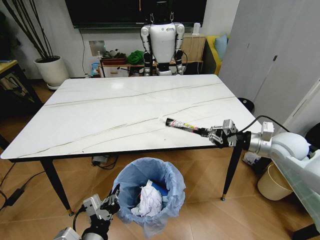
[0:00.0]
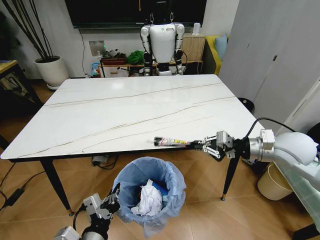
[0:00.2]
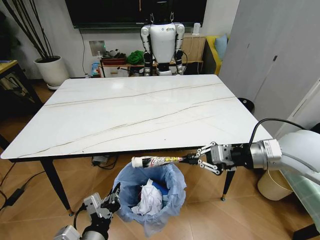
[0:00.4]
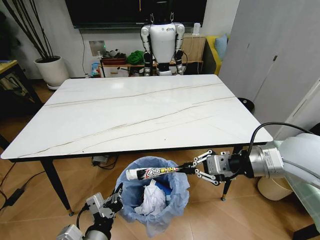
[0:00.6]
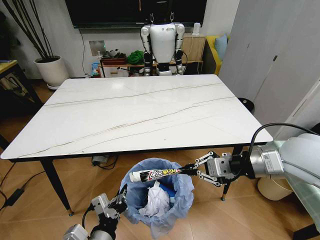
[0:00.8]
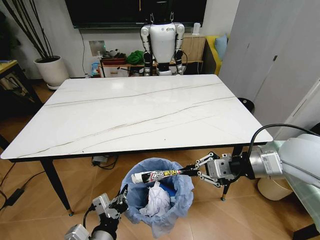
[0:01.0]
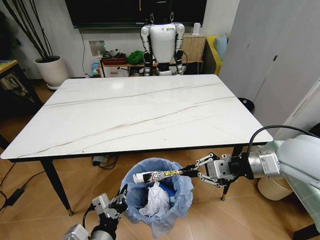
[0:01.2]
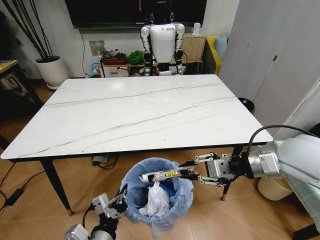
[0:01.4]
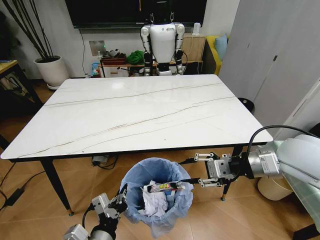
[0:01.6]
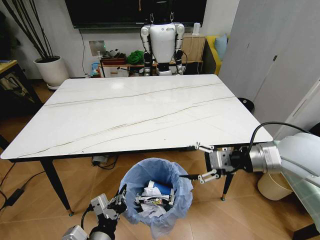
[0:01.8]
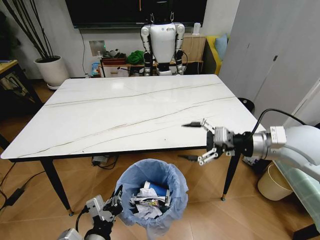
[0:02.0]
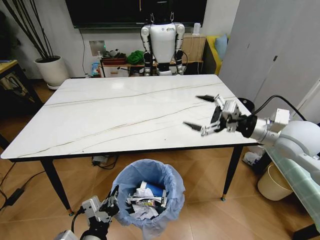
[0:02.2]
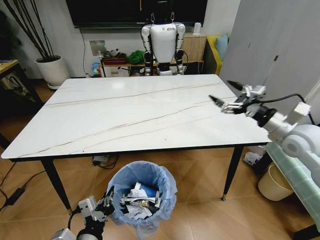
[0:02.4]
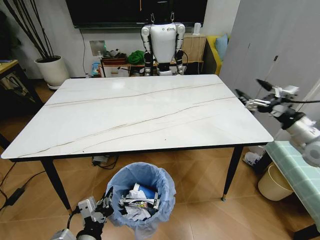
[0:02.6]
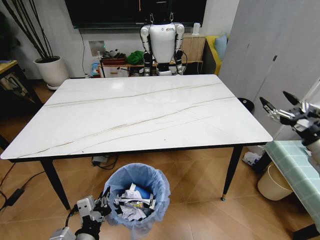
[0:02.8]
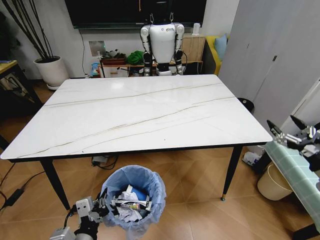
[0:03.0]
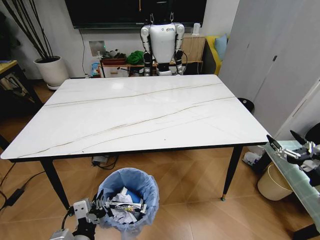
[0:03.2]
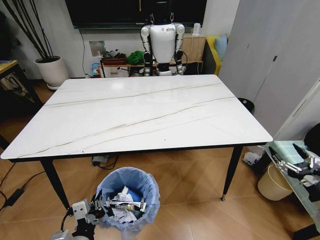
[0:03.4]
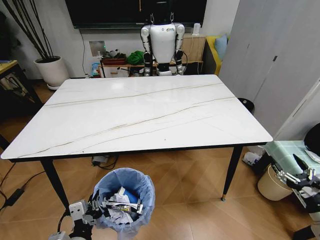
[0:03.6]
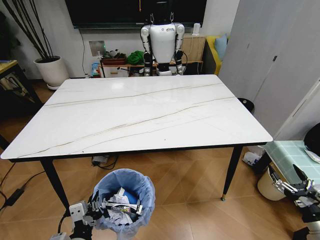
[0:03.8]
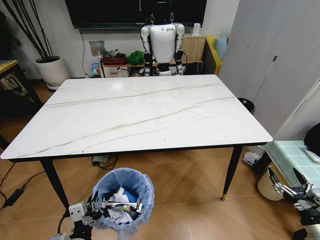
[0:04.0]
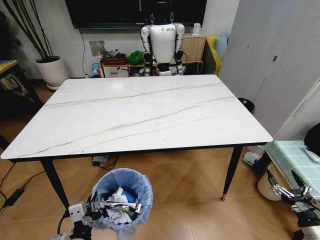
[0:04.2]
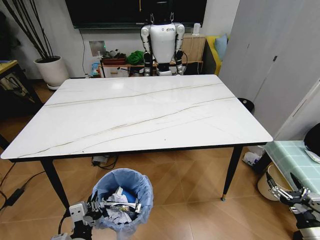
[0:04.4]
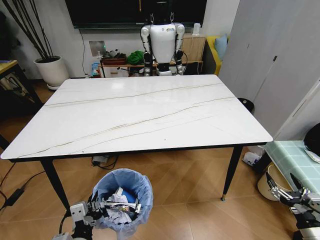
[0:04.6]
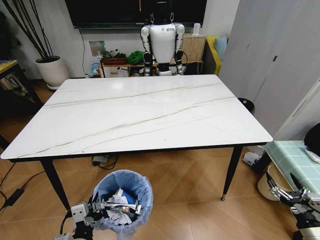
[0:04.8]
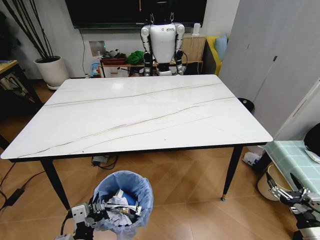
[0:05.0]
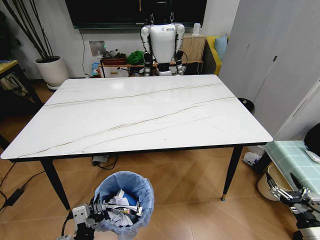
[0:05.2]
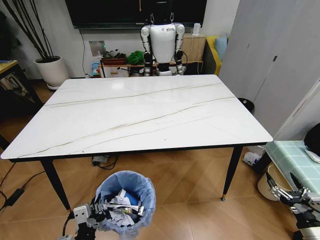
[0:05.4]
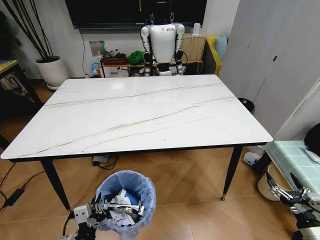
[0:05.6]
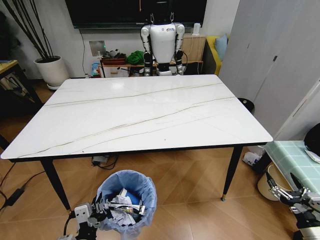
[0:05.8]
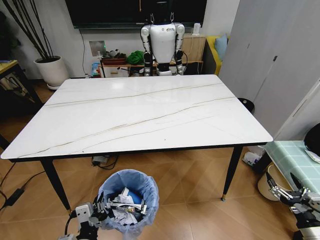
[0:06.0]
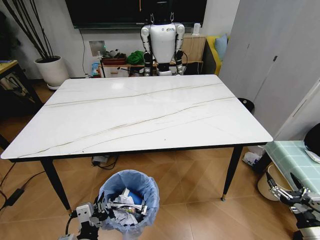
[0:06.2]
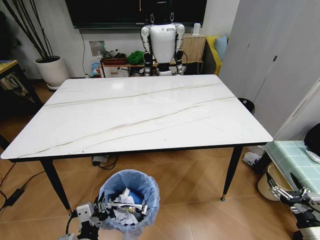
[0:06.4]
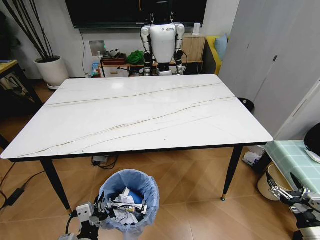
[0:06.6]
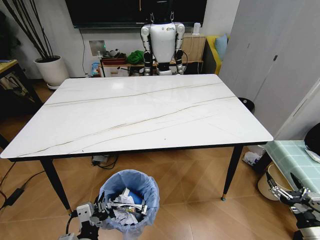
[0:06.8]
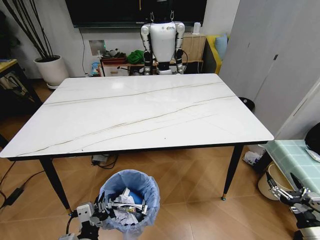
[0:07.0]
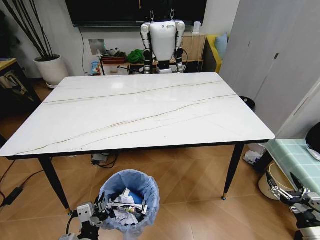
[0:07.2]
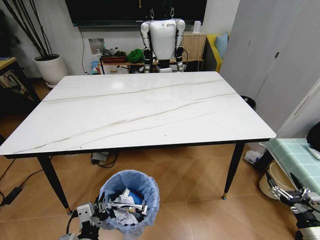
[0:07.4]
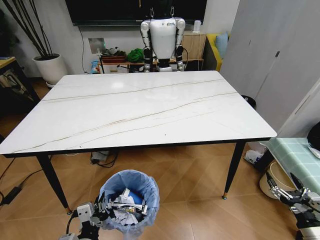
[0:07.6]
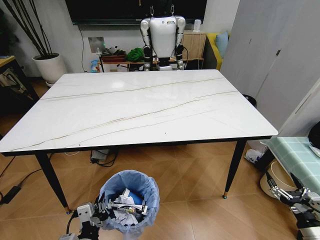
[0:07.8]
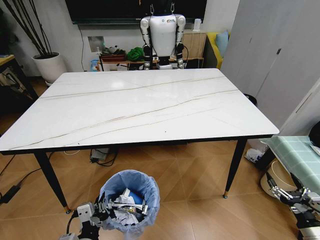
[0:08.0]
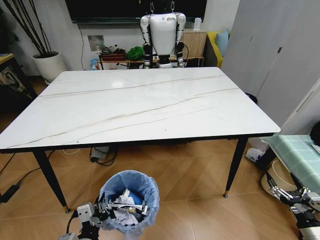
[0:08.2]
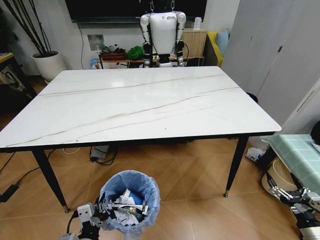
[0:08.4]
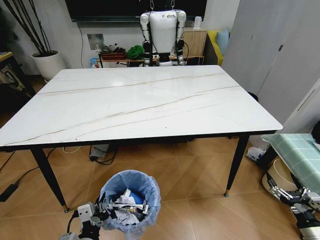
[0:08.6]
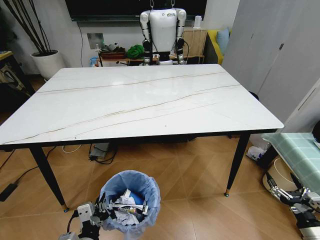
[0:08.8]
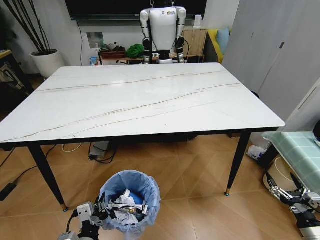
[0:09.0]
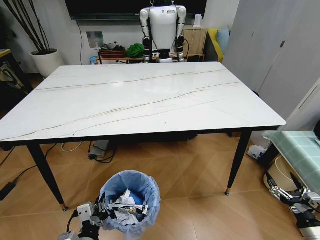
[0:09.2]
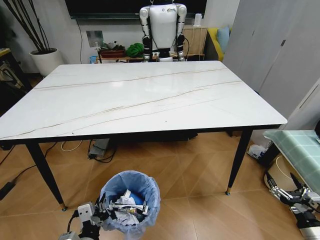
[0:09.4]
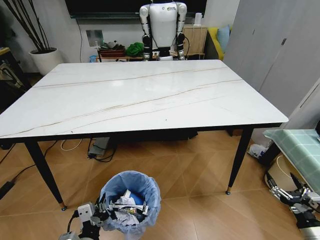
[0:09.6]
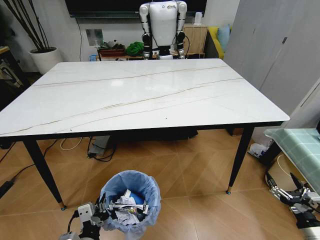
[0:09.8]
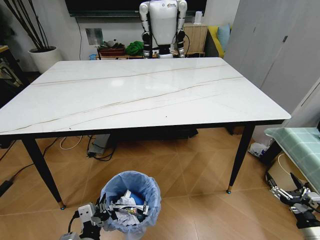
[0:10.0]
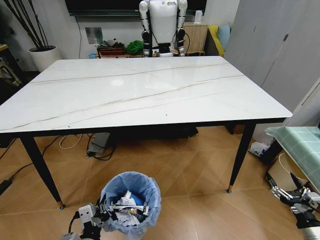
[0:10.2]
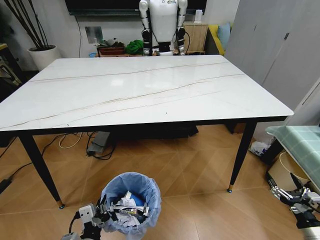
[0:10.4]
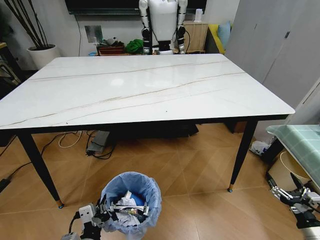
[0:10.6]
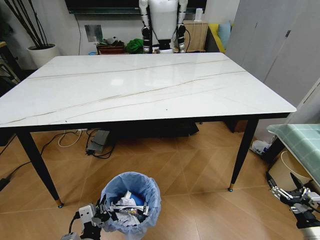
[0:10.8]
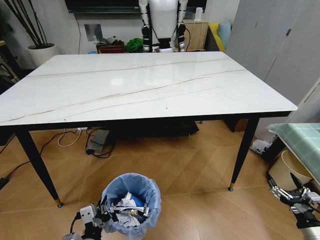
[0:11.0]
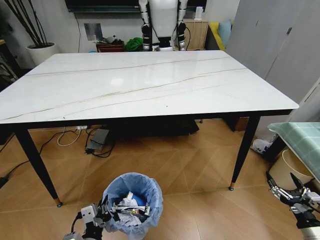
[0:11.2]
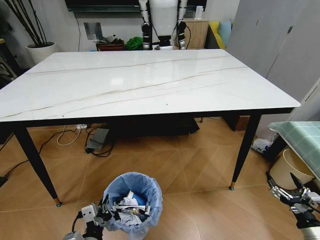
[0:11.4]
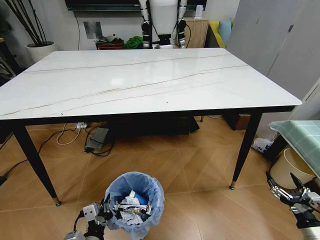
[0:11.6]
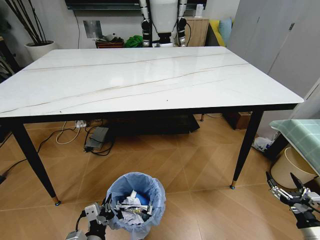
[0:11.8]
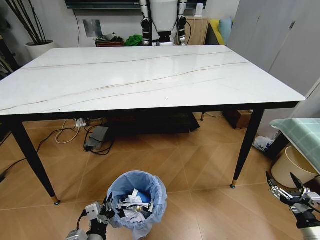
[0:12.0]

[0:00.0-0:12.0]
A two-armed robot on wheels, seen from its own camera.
Task of the whole recording: Pick up the trash bin and place the trash from the table into it.
0:00.0 to 0:01.6: The right gripper goes approximately 15 cm backward, upward and to the left, and opens its fingers.
0:01.6 to 0:03.0: The right gripper heads to the right and downward, covering some 25 cm, and opens up.
0:03.0 to 0:04.4: The right gripper heads downward and backward, covering some 20 cm.
0:04.4 to 0:06.0: Neither gripper changes place.
0:06.0 to 0:07.6: Neither gripper changes place.

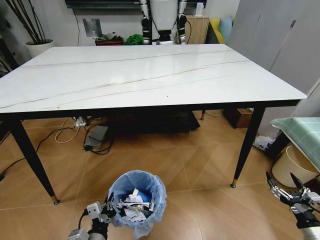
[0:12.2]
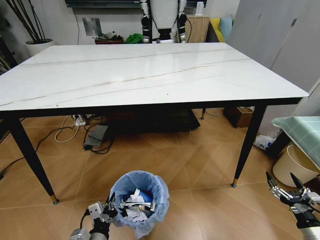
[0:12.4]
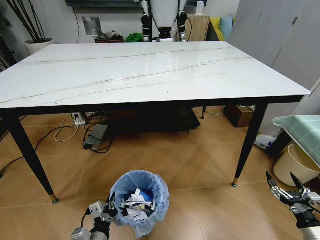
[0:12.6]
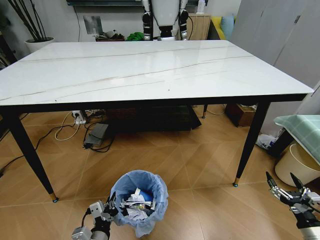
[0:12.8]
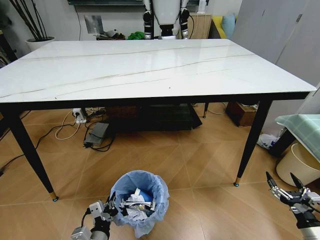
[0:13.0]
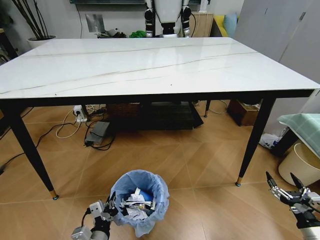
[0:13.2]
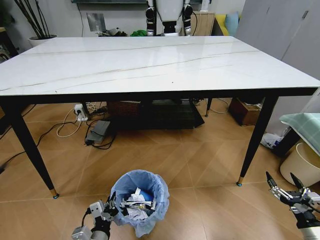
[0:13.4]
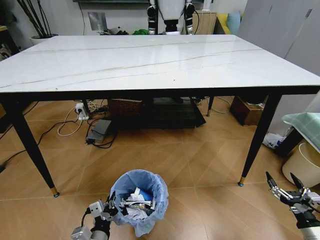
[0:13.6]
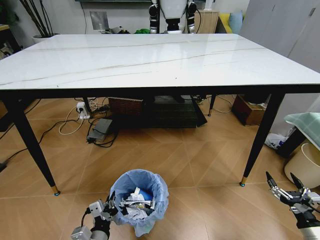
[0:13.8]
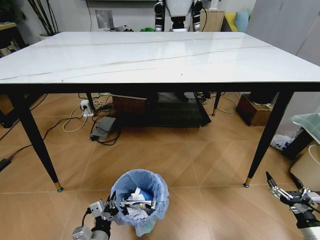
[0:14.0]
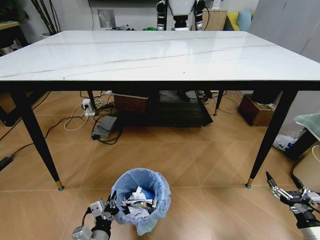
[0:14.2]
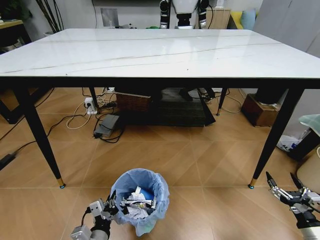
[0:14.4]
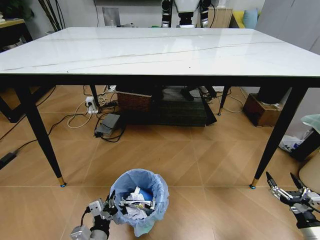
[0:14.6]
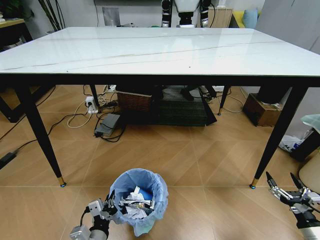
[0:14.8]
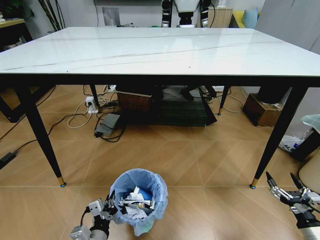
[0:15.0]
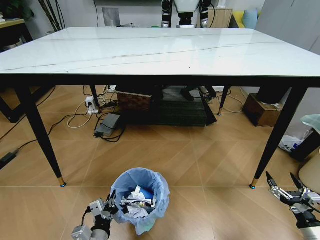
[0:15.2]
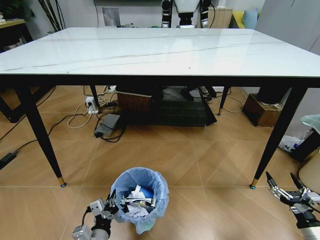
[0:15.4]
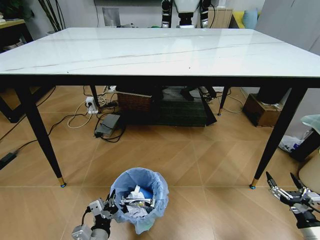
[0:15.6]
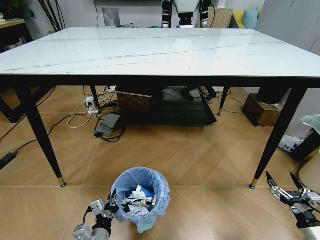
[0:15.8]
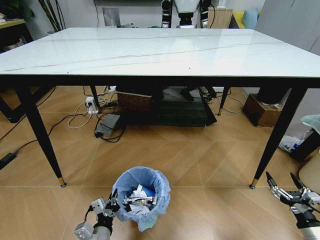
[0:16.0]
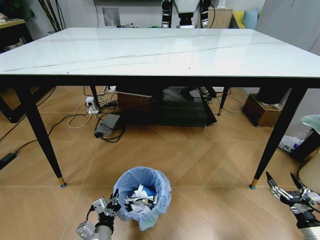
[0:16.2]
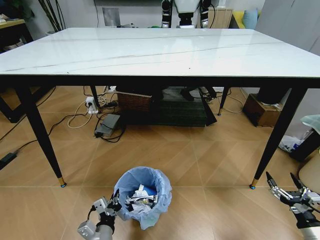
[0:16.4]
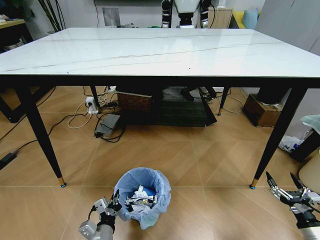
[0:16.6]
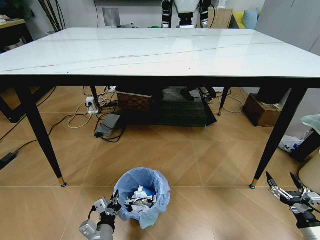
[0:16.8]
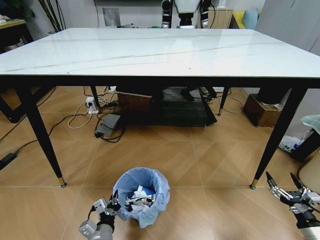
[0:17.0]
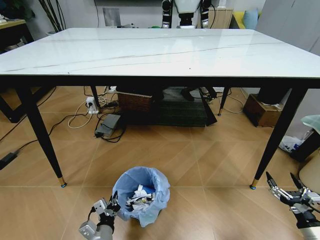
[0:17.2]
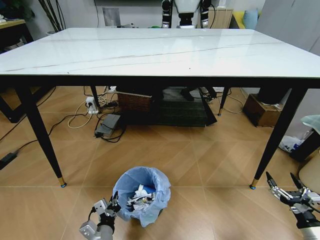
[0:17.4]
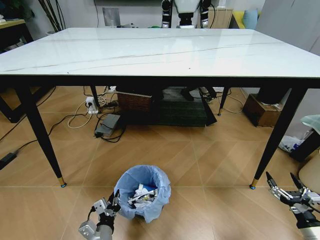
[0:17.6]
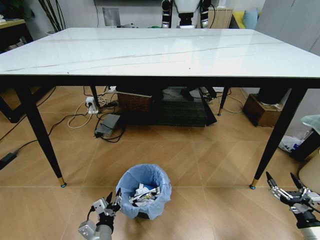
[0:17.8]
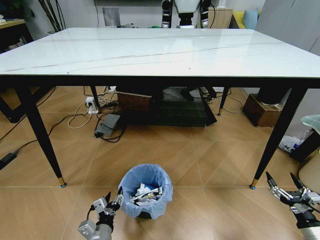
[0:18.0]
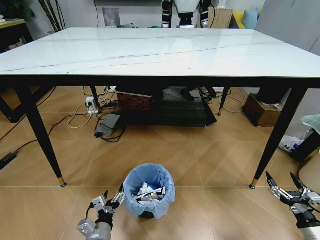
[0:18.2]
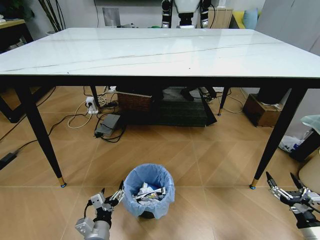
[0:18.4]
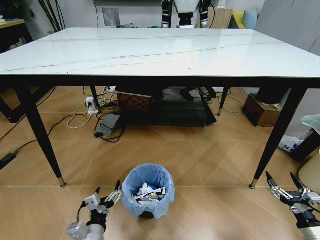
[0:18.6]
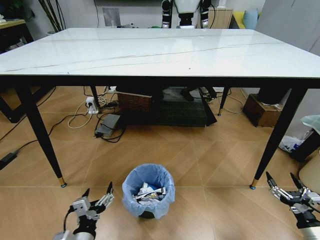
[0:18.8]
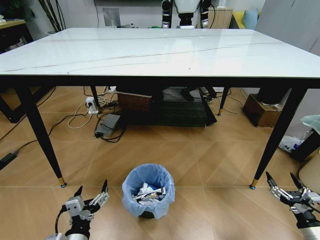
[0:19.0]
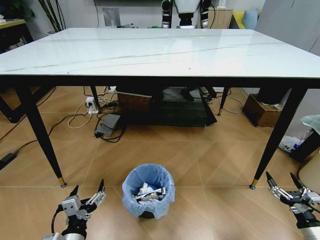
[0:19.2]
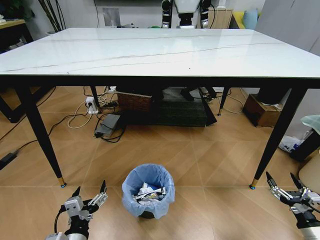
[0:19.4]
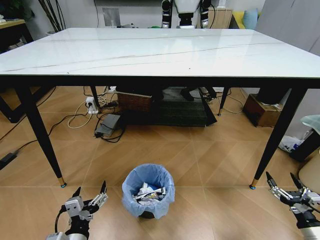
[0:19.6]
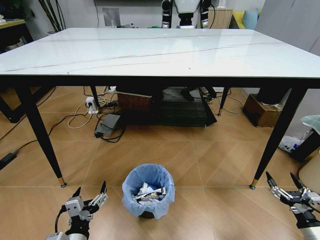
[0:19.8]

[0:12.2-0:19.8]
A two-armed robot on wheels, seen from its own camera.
Task of the whole recording: Pick up the trash bin and place the trash from the table into it.
0:15.2 to 0:16.8: The grippers make only small movements.
0:16.8 to 0:18.2: The left gripper opens.
0:18.2 to 0:19.8: The left gripper is displaced upward by about 10 cm.
